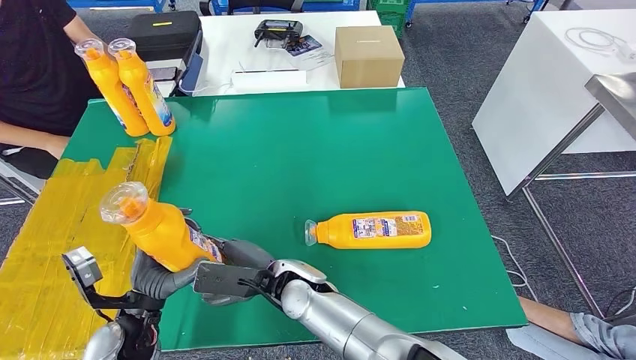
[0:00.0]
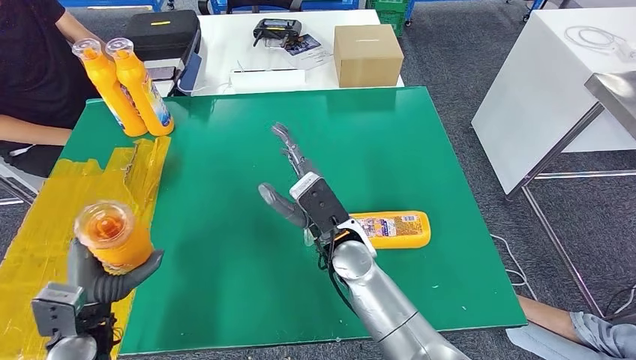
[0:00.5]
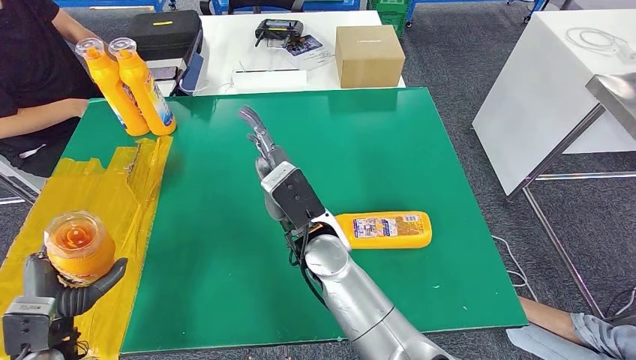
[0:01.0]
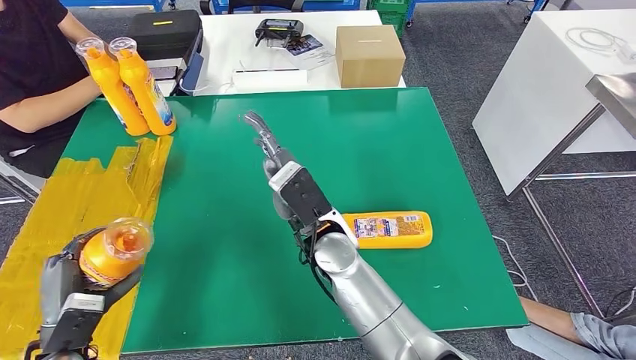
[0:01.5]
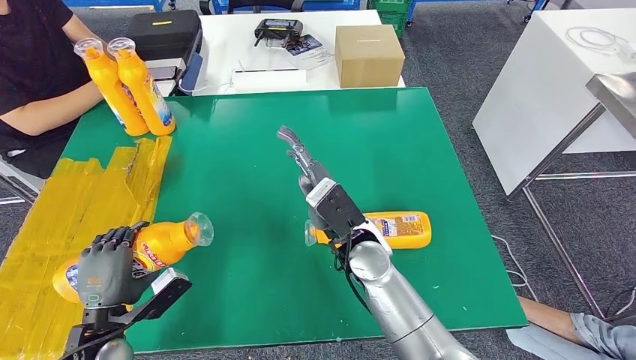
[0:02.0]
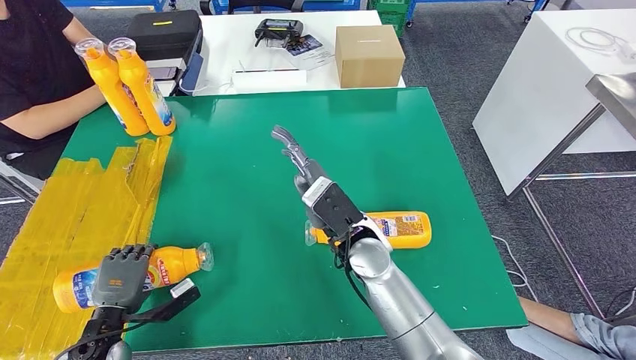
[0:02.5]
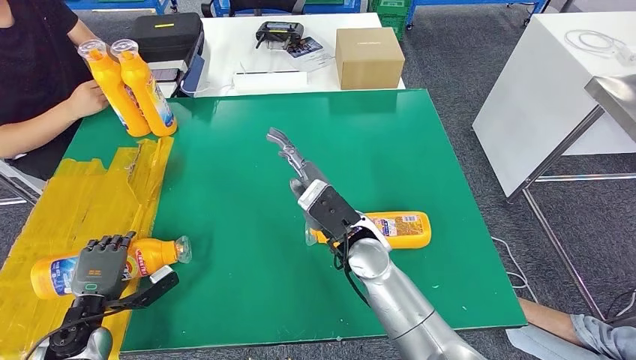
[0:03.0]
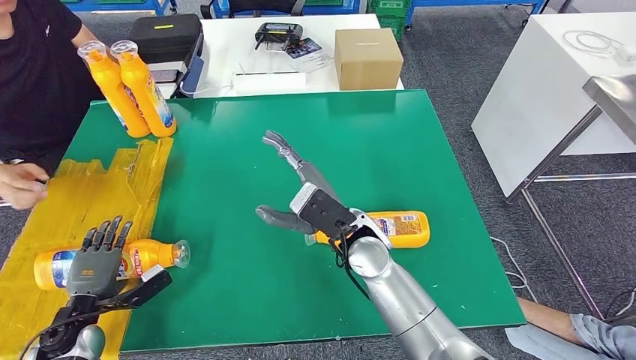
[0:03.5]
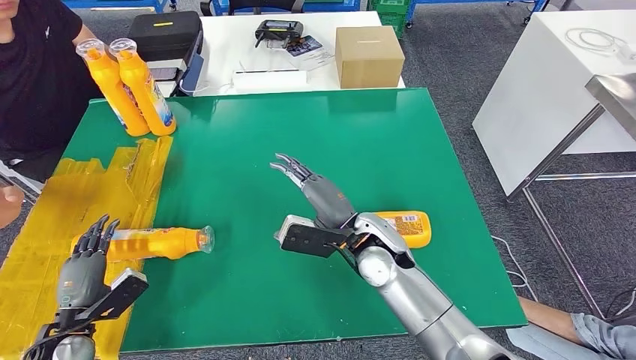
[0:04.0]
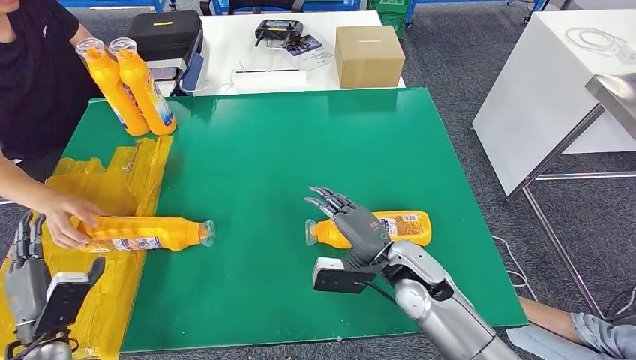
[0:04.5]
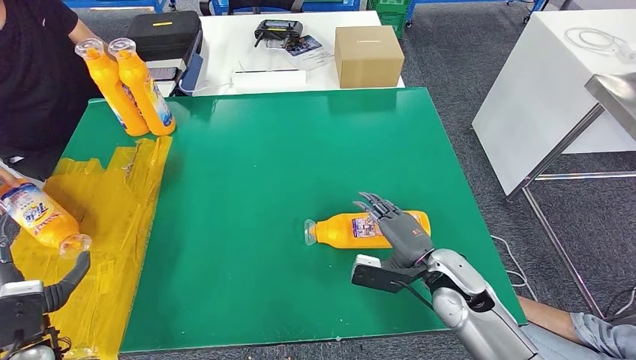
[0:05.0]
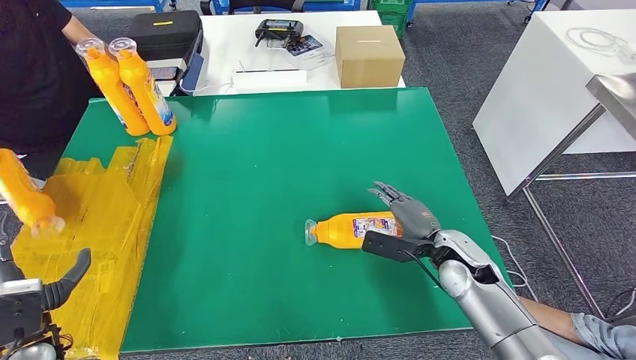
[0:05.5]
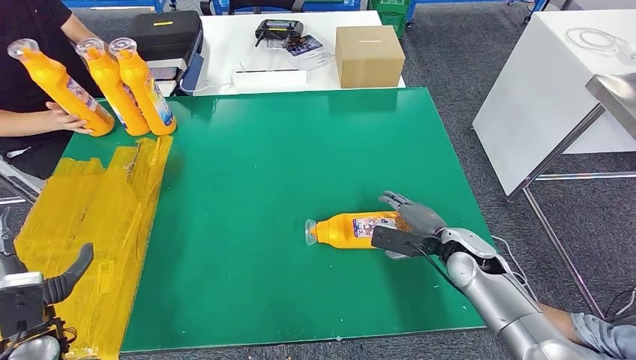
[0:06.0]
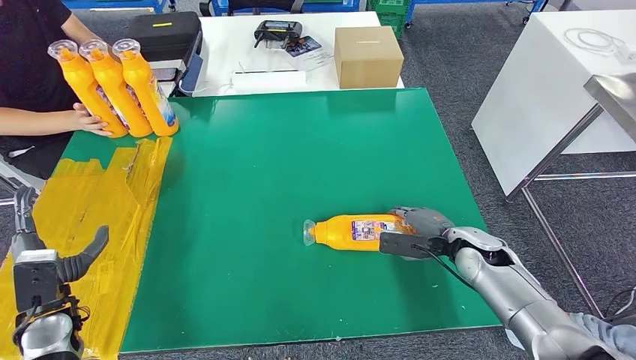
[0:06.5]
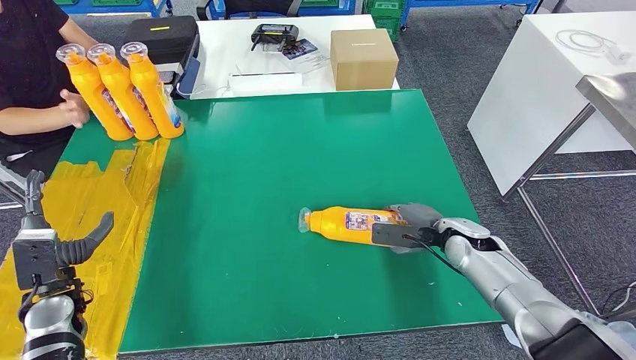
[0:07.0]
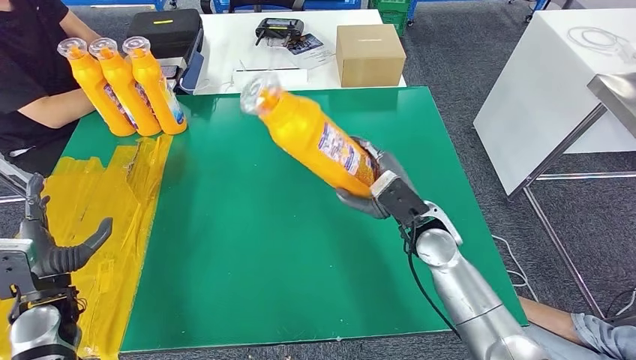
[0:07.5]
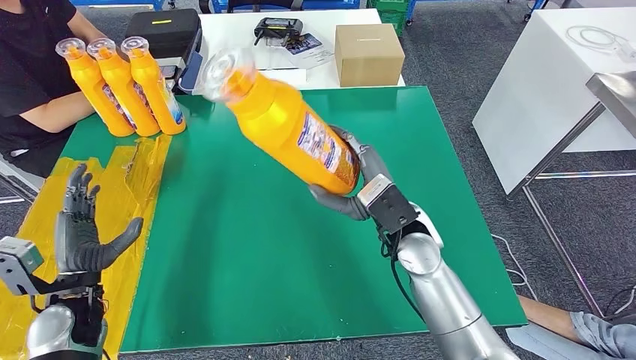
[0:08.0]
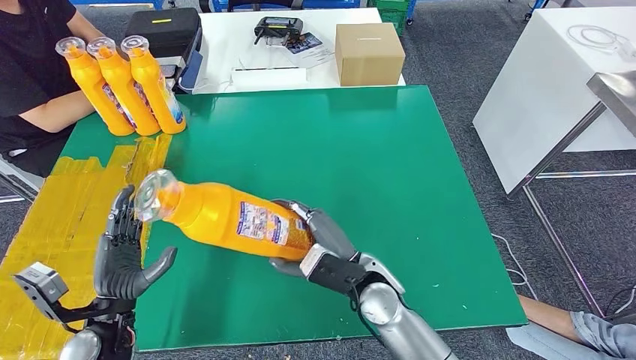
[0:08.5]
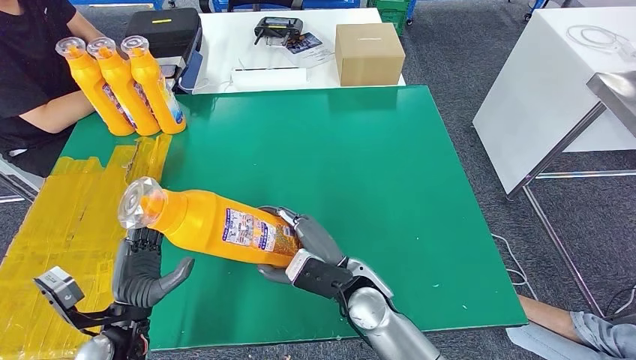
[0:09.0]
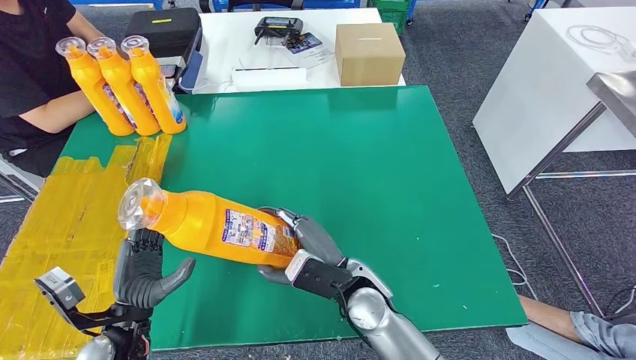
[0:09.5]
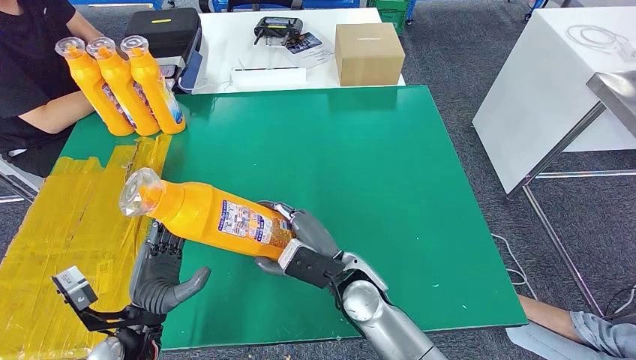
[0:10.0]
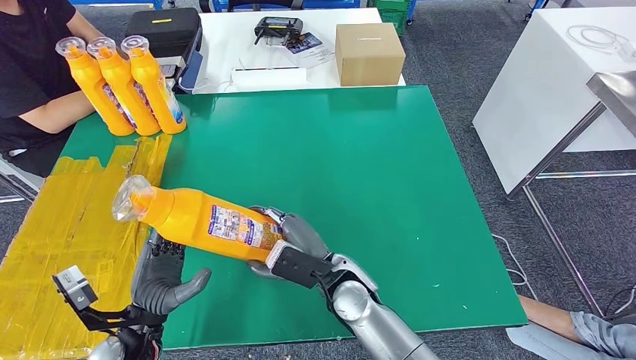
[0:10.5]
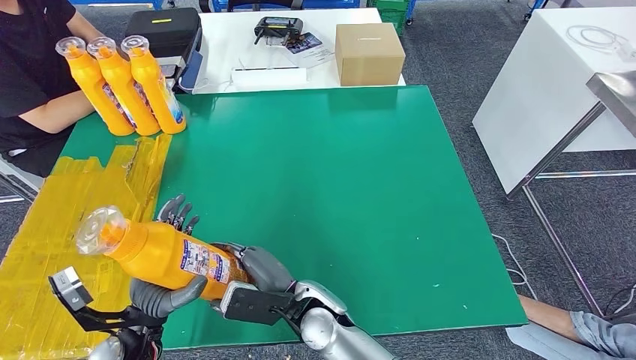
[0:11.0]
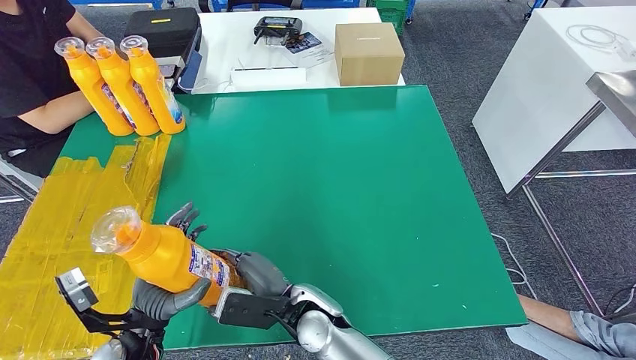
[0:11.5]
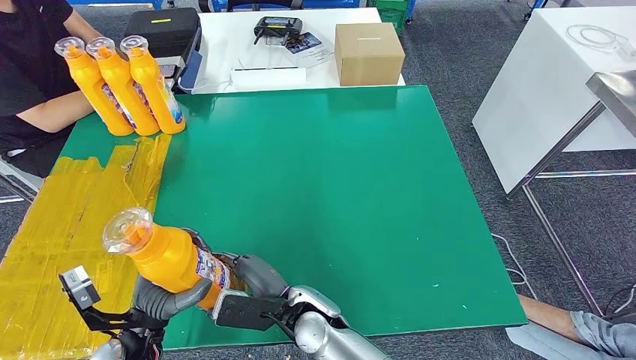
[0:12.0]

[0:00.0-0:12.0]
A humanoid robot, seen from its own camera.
Step, 0:00.0 to 0:03.0: Flip the fast-moving consumer goods bottle to the front side.
Step, 0:04.5 to 0:08.5: Pick up the fast-moving consumer goods bottle from the table.
0:00.0 to 0:02.0: The left hand is displaced to the left by approximately 5 cm. Meanwhile the right hand is displaced to the right and upward by roughly 10 cm.
0:02.0 to 0:04.0: The left hand heads to the left, covering approximately 10 cm.
0:10.0 to 0:12.0: The right hand is displaced to the left by roughly 10 cm.

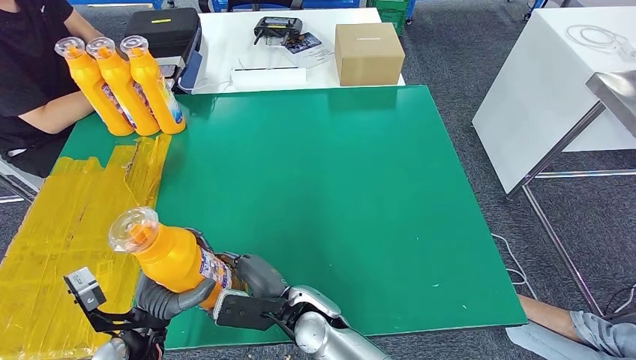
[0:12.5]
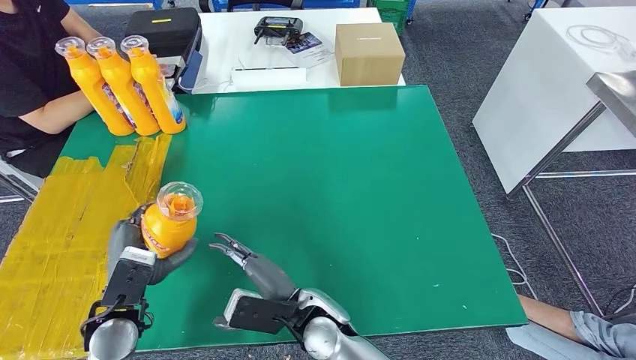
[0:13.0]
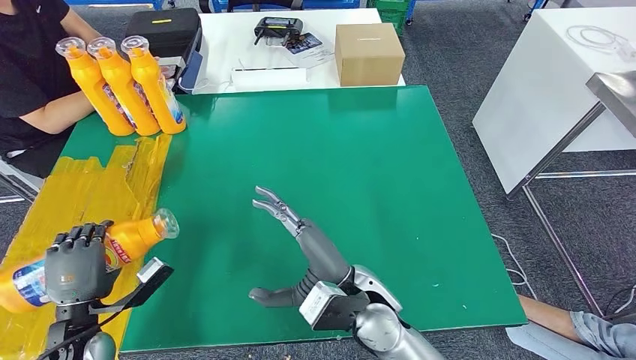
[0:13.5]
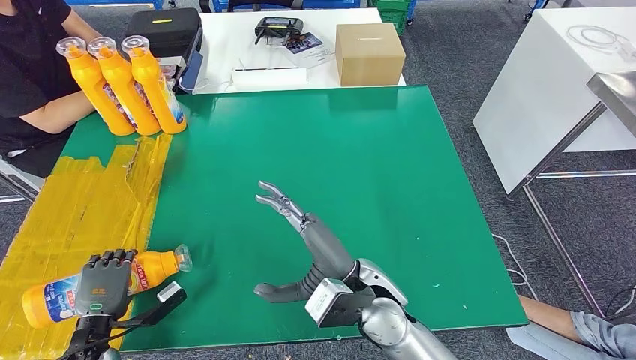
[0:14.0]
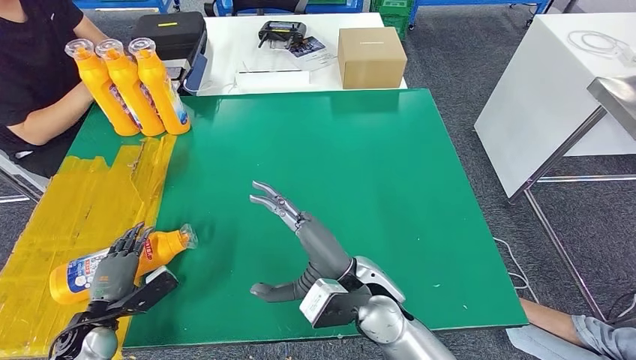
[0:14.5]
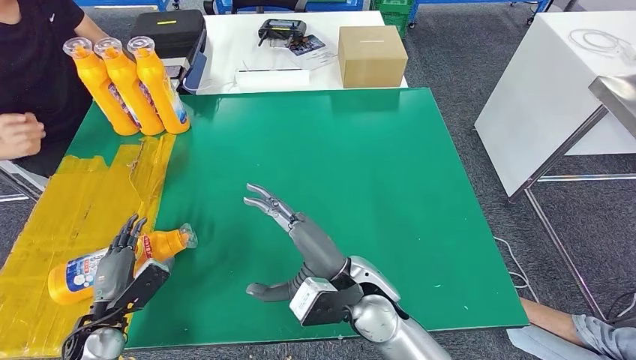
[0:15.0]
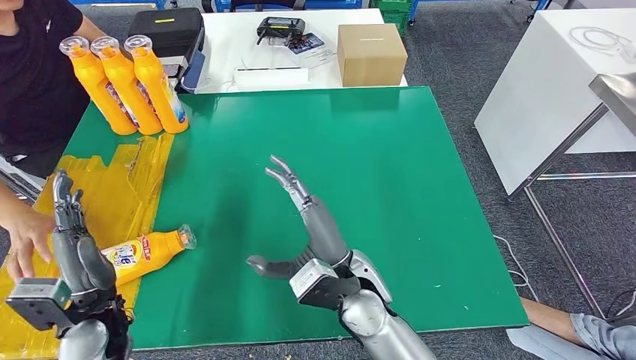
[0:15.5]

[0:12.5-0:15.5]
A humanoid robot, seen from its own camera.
Step, 0:12.5 to 0:15.5: Flip the fast-moving consumer goods bottle to the front side.
0:12.5 to 0:14.0: The left hand shifts about 15 cm to the left and downward. The right hand goes roughly 10 cm to the right and upward.
